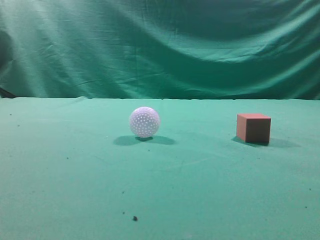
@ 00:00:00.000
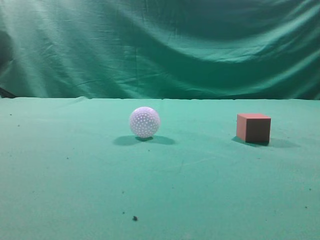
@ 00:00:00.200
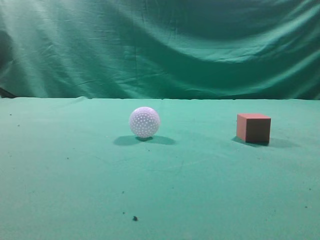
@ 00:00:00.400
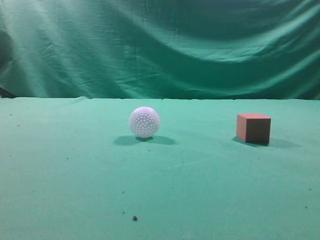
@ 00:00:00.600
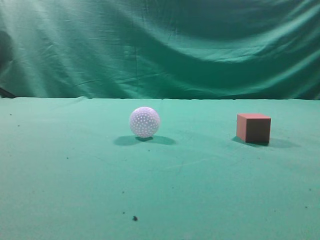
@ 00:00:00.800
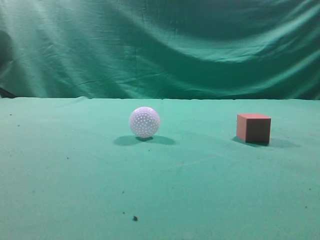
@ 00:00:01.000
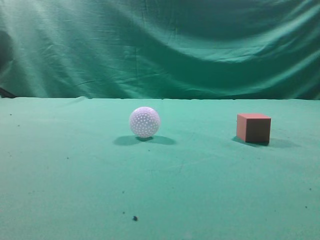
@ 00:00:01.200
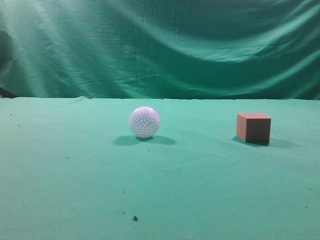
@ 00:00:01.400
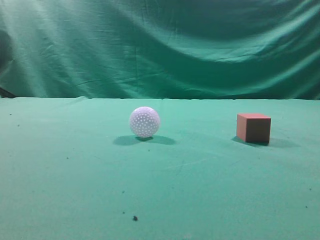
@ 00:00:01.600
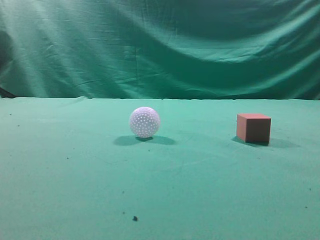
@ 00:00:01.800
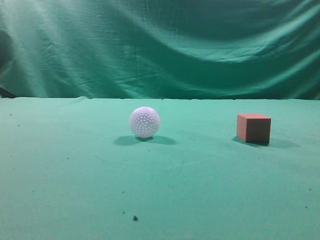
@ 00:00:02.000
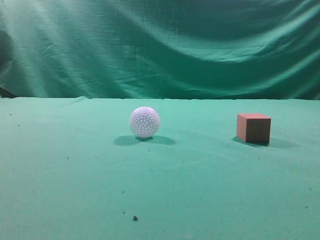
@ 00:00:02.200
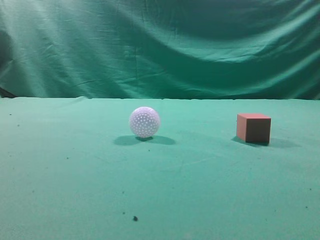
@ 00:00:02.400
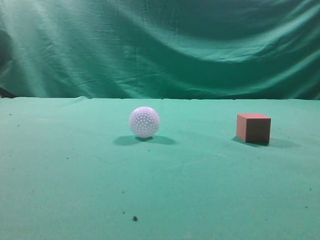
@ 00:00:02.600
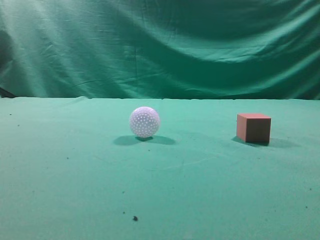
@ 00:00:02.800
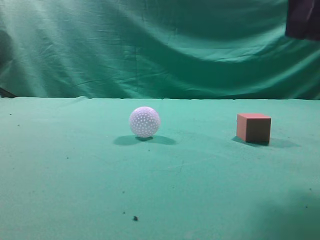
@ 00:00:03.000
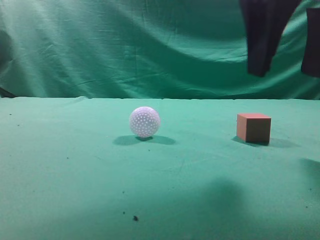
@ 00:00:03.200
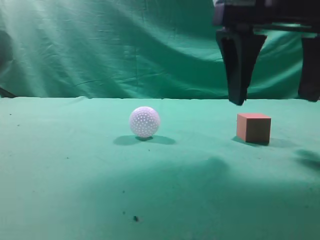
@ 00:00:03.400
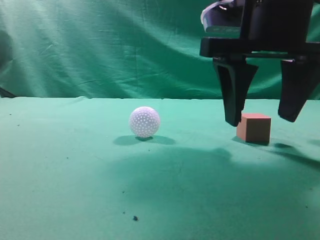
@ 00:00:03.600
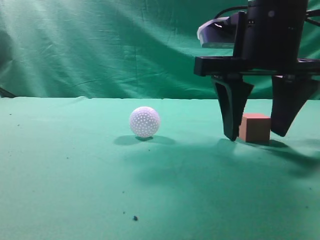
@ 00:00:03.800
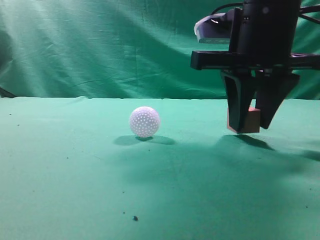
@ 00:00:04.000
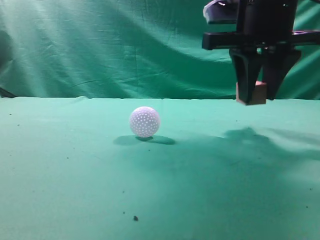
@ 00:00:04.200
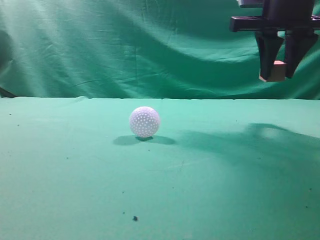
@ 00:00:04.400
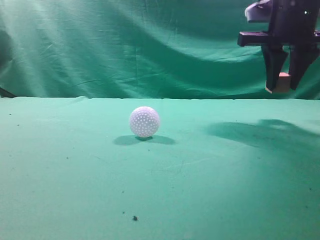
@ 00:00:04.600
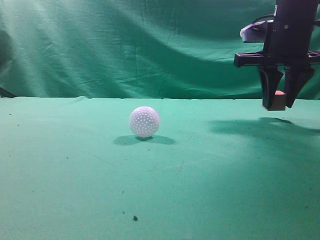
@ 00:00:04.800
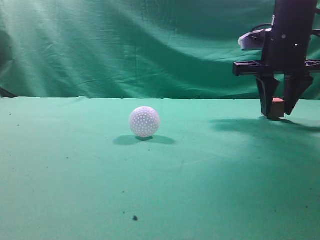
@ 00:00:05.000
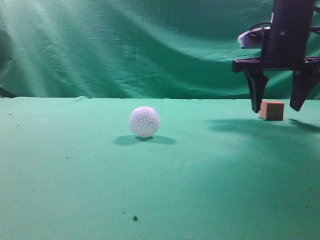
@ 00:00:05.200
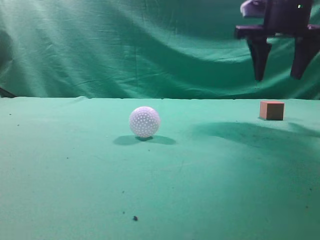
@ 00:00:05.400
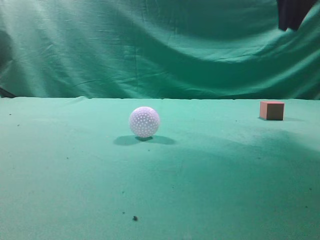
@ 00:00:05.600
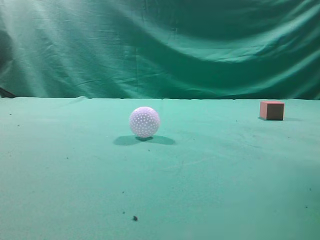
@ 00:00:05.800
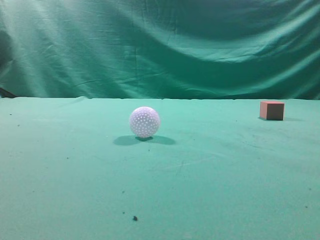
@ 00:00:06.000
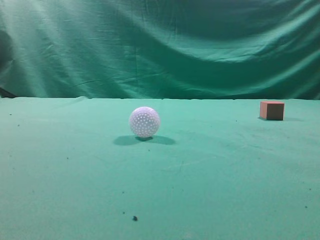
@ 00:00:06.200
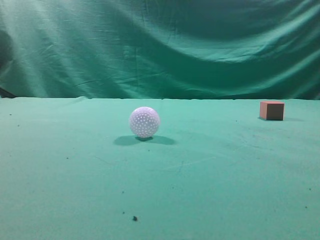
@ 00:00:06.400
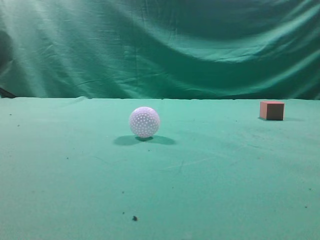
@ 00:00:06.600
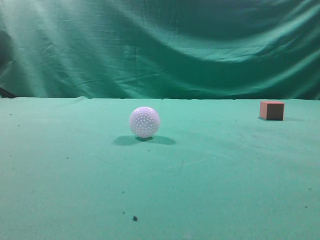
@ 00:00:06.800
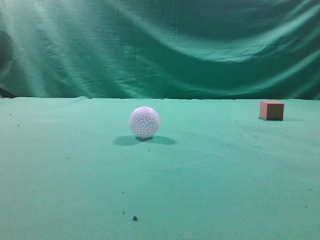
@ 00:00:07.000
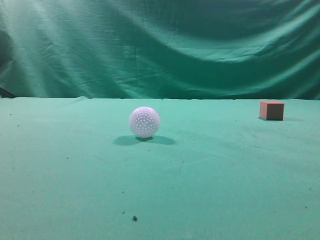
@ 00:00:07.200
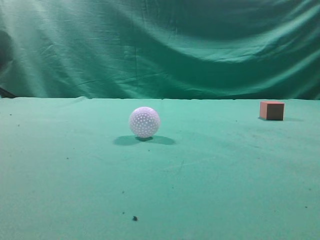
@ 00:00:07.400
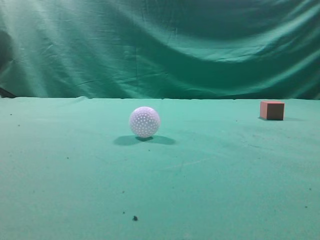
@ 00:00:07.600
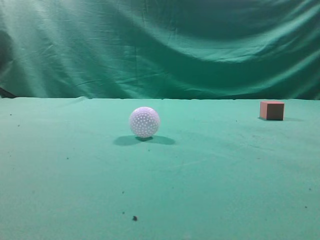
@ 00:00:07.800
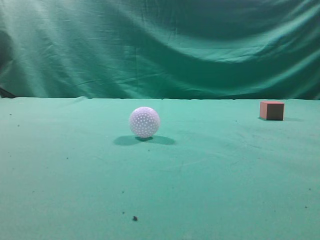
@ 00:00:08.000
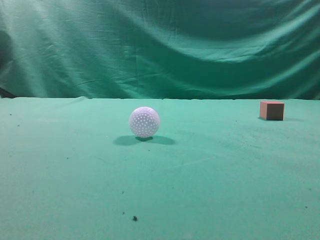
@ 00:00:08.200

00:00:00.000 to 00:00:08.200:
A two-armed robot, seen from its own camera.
Task of the whole recording: pick up the cube block and place it in another position on the table.
Step, 00:00:00.000 to 00:00:04.000: Pick up the small cube.
Step, 00:00:04.200 to 00:00:05.200: Place the small cube on the ahead of the table.
00:00:01.600 to 00:00:03.200: The right gripper goes approximately 25 cm forward and to the left, and opens up.
00:00:03.200 to 00:00:05.000: The right gripper travels forward by roughly 15 cm, and closes.
00:00:05.000 to 00:00:06.600: The right gripper heads backward and upward, covering approximately 40 cm, and closes.
